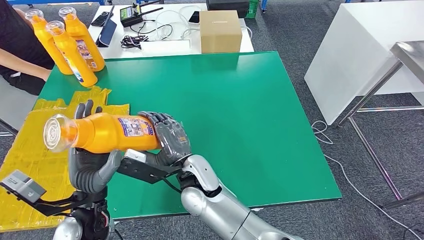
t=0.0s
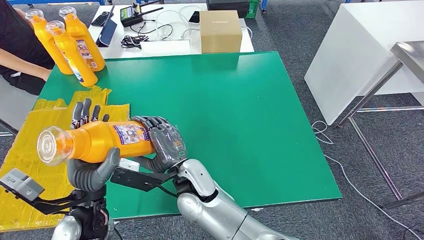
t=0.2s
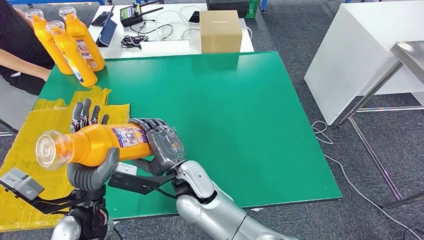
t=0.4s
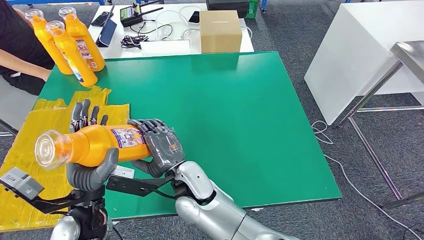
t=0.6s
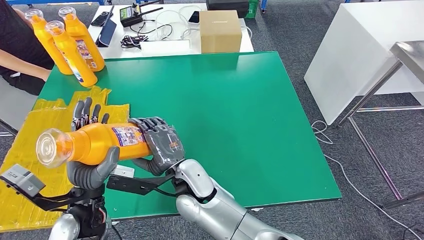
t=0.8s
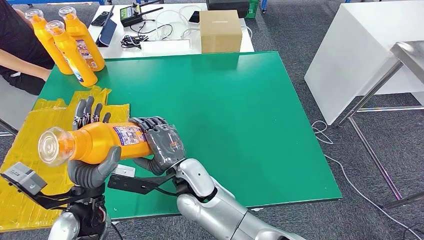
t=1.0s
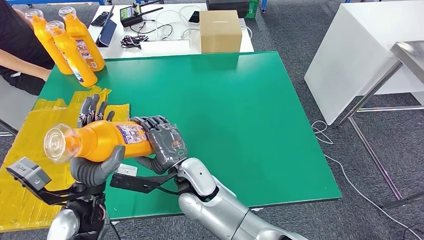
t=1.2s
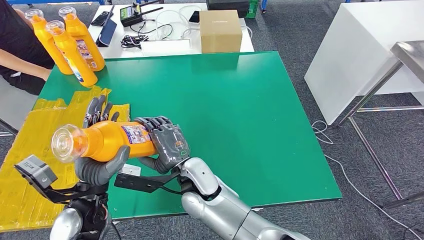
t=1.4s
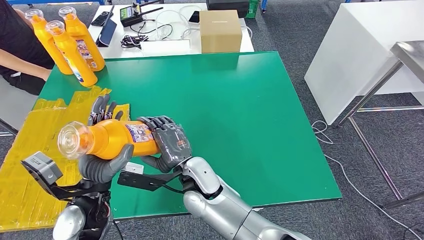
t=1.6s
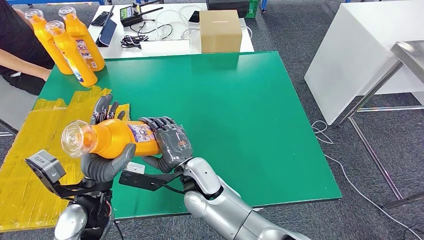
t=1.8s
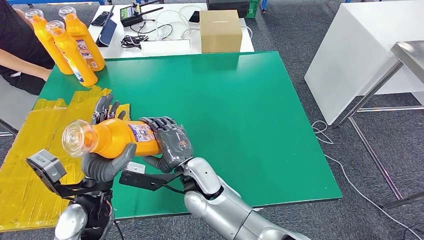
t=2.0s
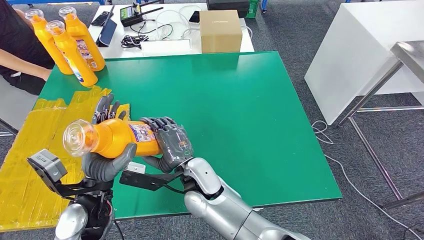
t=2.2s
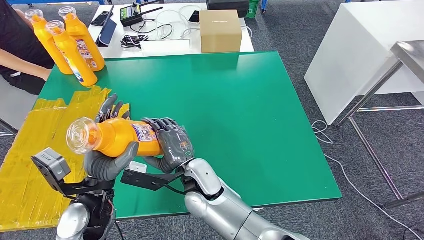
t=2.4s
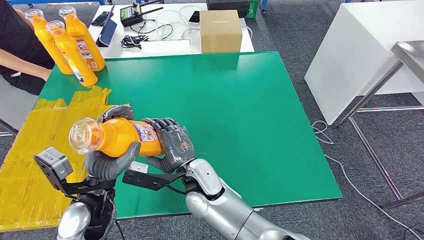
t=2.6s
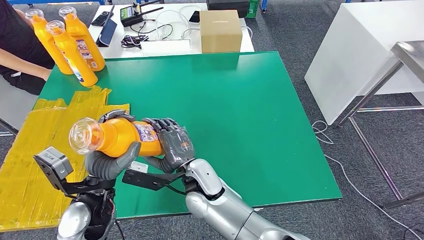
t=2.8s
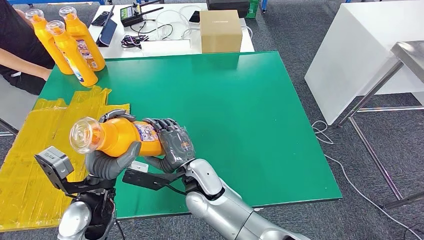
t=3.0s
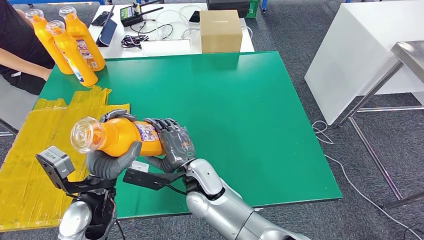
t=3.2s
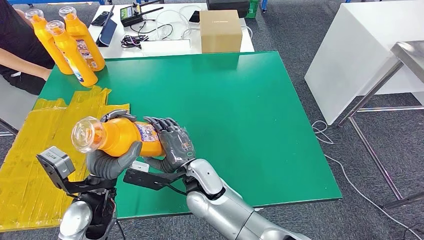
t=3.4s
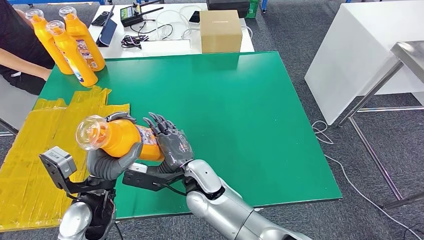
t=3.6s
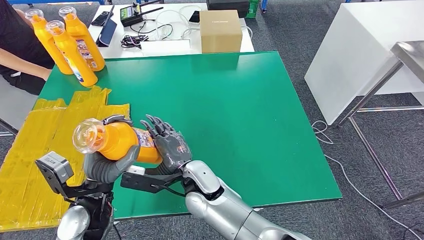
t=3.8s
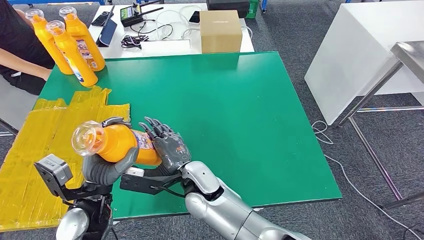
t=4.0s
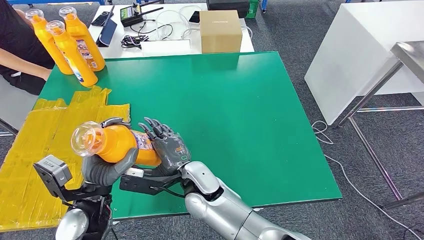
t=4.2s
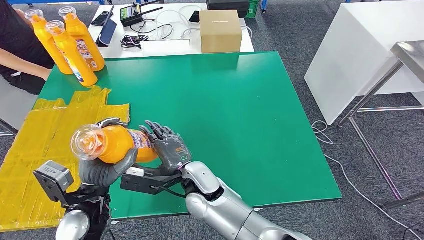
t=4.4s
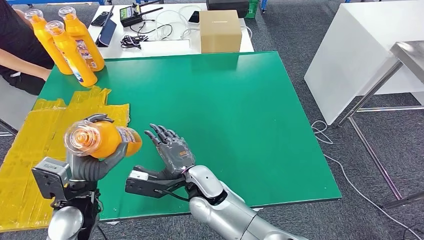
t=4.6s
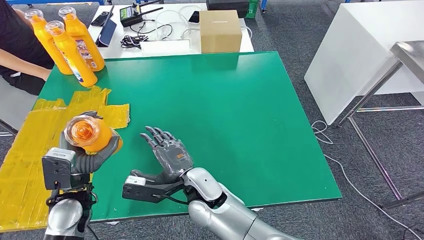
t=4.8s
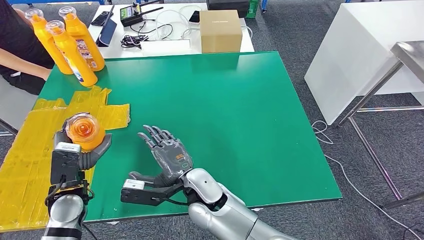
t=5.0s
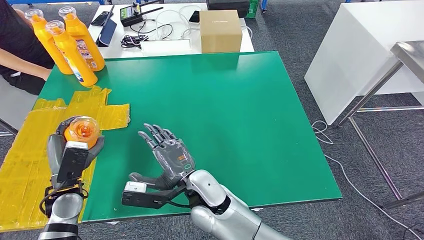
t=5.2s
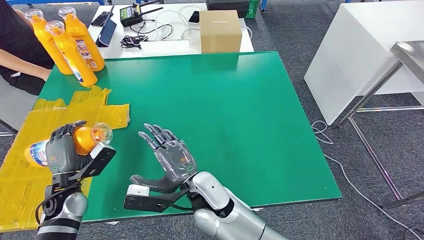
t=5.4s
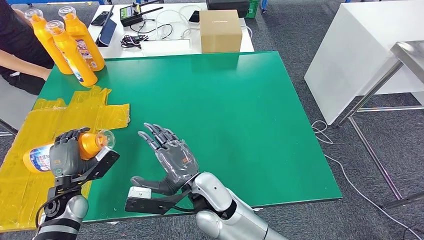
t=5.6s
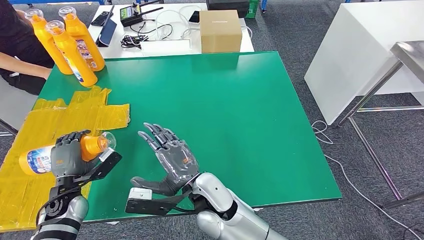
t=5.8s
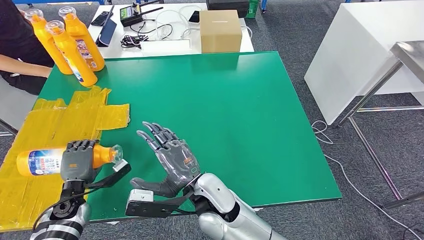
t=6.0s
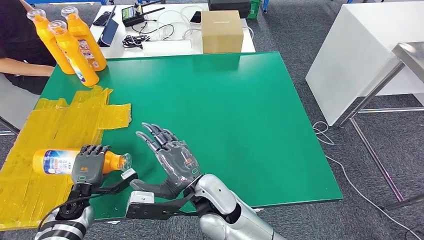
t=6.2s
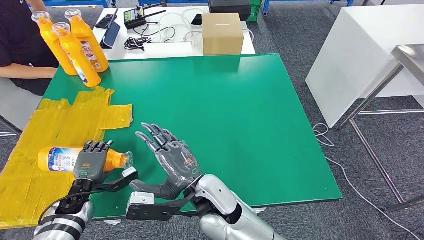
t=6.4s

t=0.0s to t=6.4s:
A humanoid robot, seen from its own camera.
Step, t=0.6s to t=6.4s: Flip the fast-moving consumer goods bottle to the front side.
t=0.0s to t=1.6s: The hands make only small movements.
t=1.6s to t=3.2s: Both hands stay about where they are.
t=3.2s to t=4.8s: The left hand travels to the left by roughly 5 cm.
